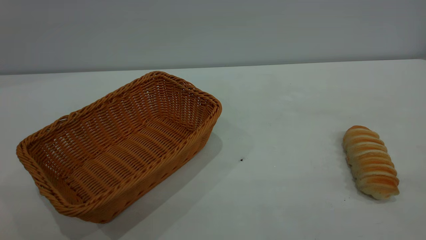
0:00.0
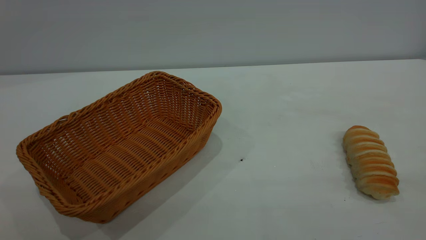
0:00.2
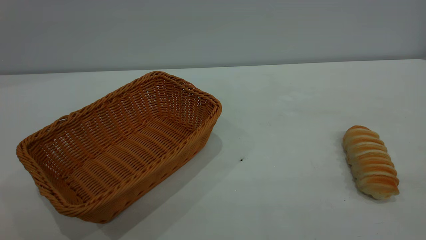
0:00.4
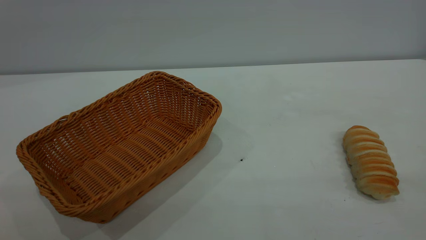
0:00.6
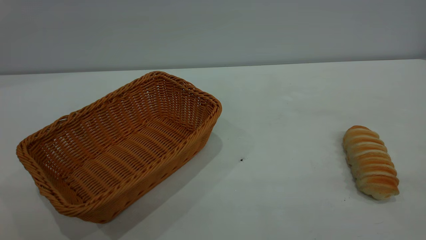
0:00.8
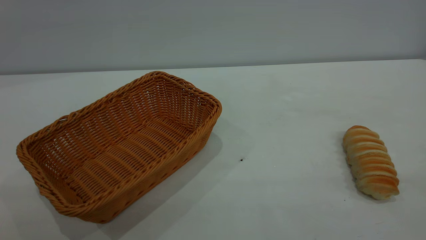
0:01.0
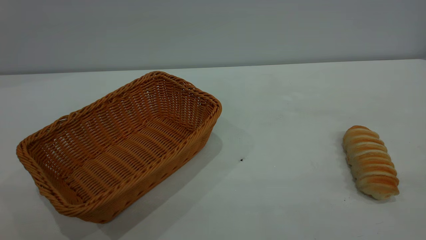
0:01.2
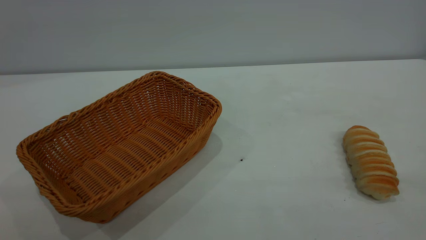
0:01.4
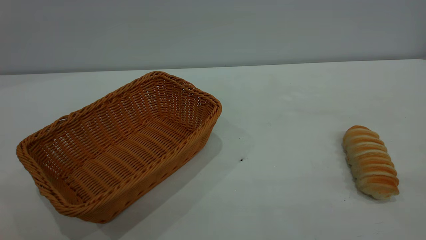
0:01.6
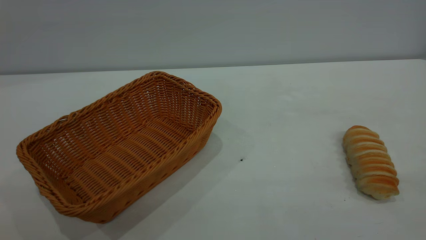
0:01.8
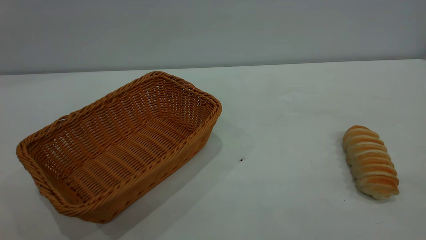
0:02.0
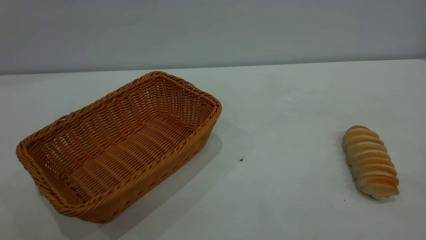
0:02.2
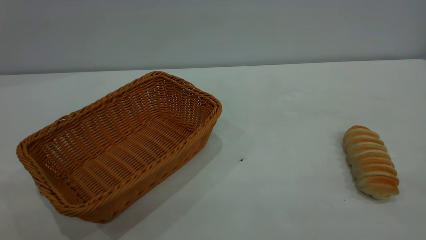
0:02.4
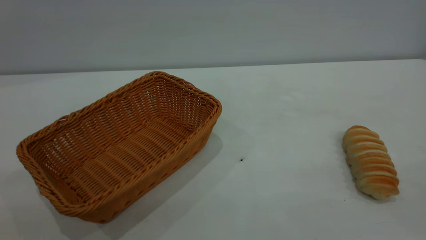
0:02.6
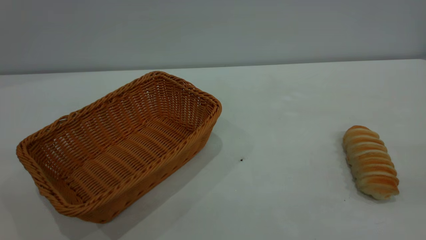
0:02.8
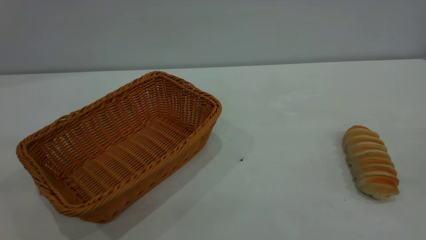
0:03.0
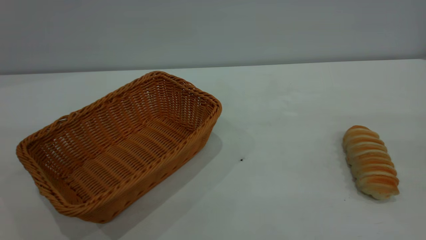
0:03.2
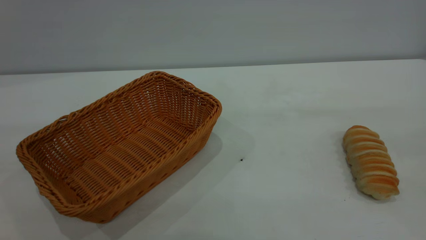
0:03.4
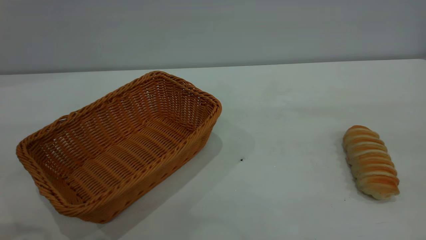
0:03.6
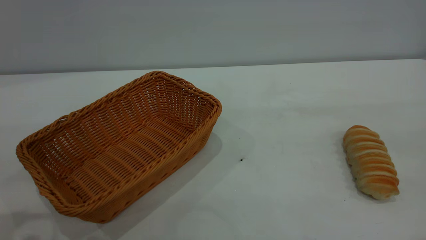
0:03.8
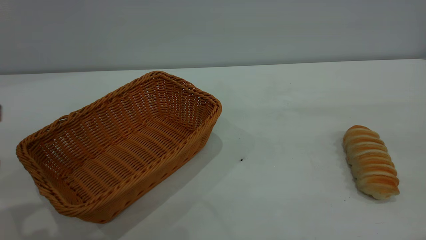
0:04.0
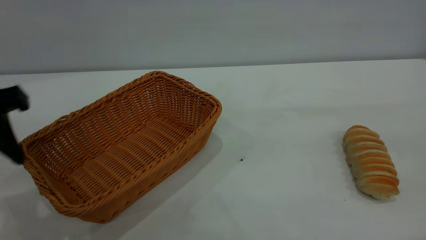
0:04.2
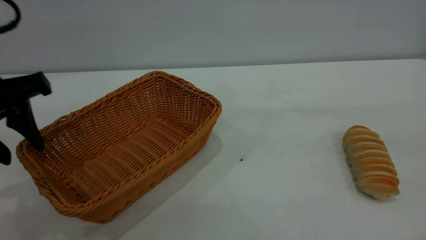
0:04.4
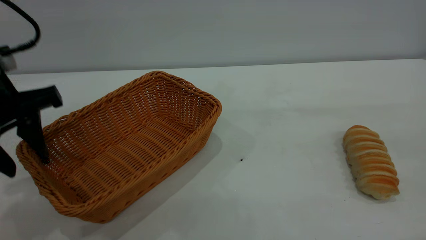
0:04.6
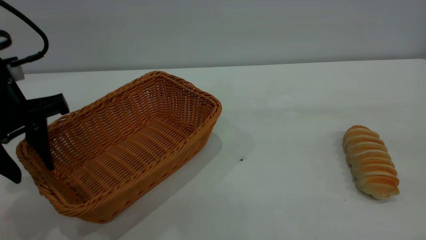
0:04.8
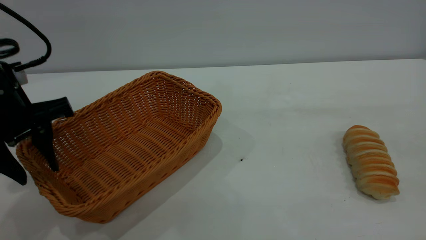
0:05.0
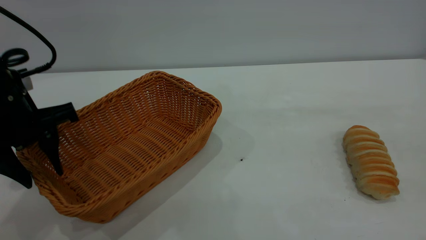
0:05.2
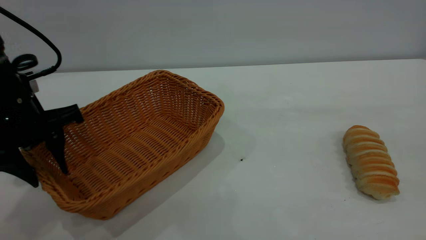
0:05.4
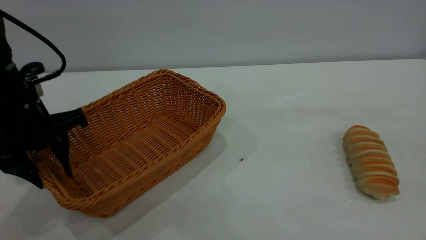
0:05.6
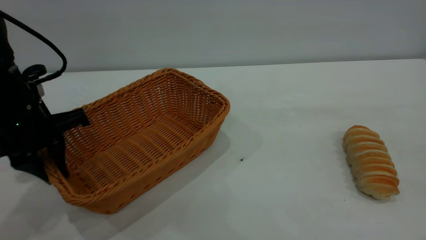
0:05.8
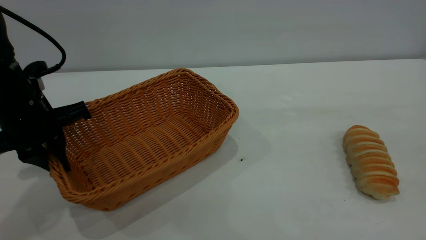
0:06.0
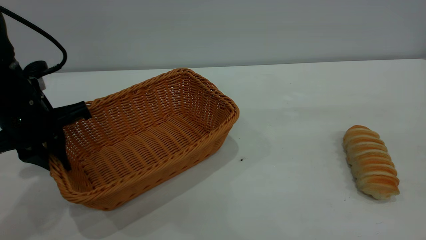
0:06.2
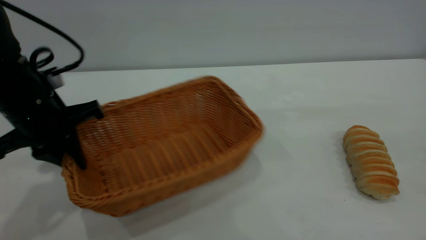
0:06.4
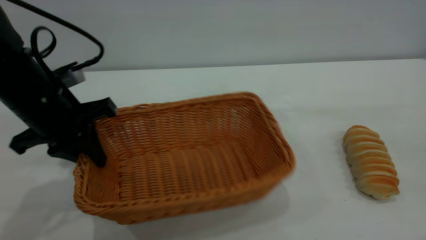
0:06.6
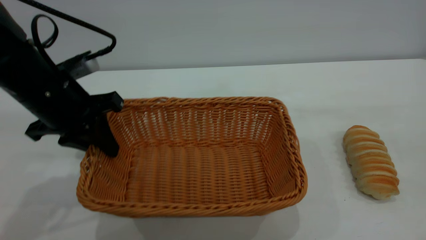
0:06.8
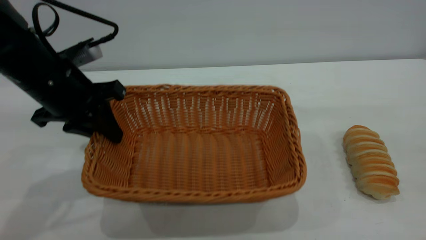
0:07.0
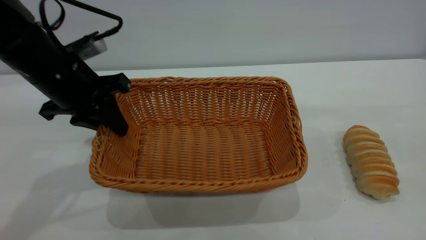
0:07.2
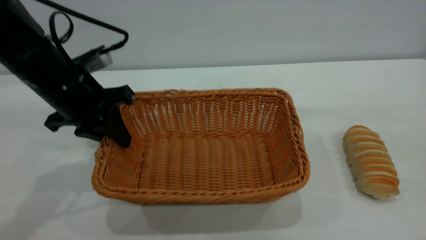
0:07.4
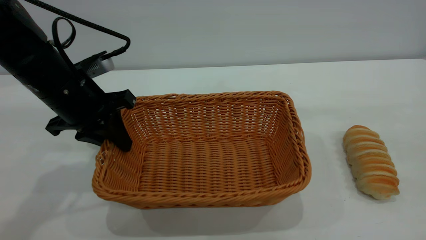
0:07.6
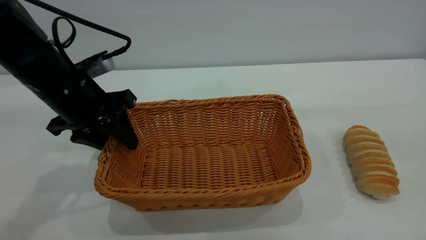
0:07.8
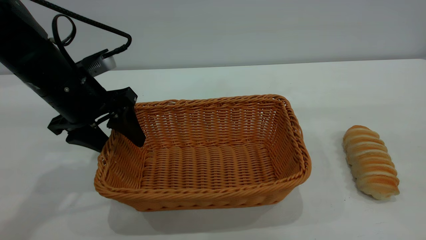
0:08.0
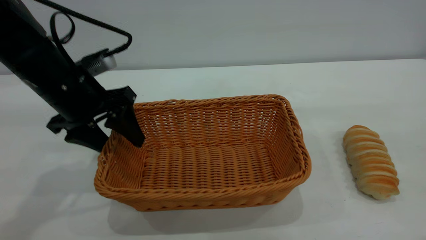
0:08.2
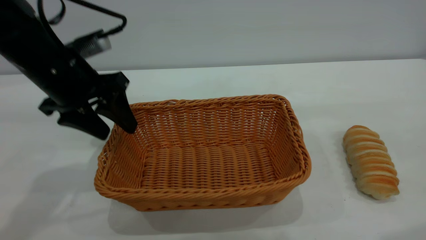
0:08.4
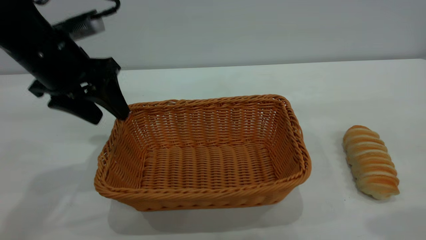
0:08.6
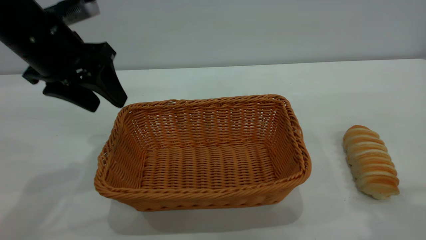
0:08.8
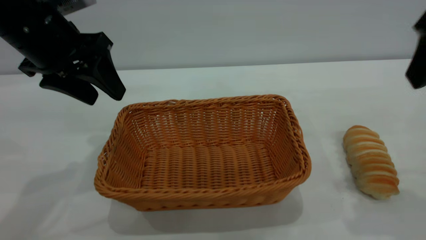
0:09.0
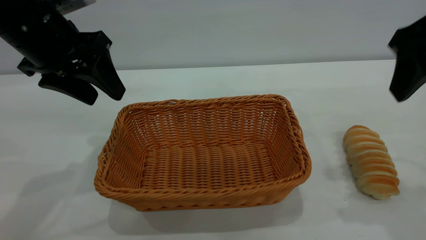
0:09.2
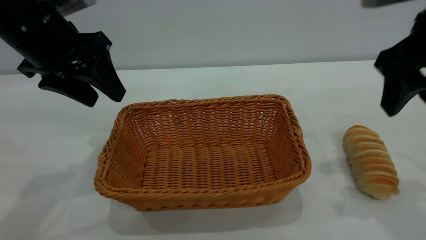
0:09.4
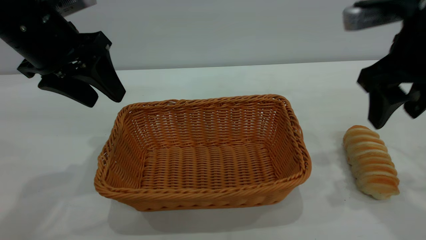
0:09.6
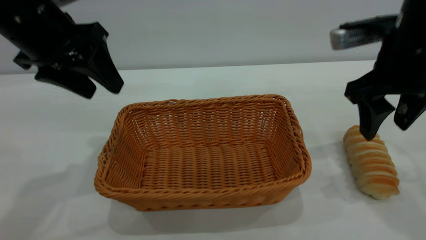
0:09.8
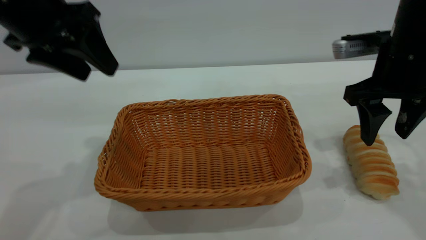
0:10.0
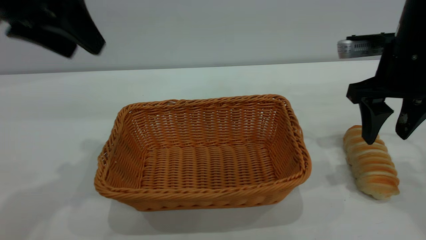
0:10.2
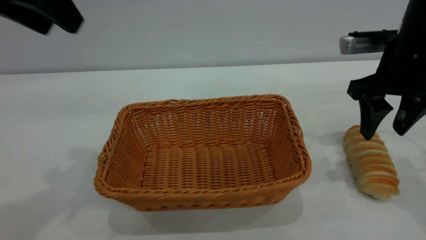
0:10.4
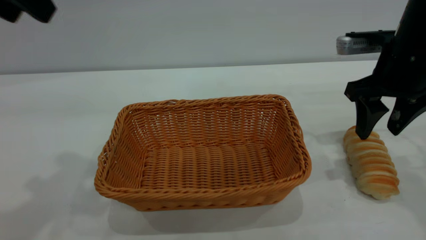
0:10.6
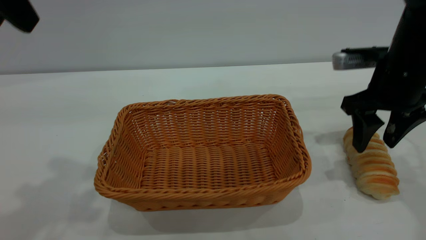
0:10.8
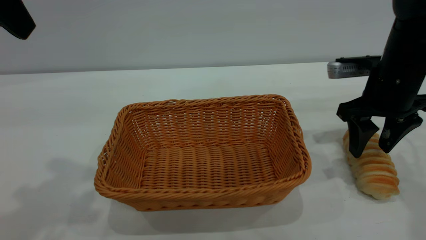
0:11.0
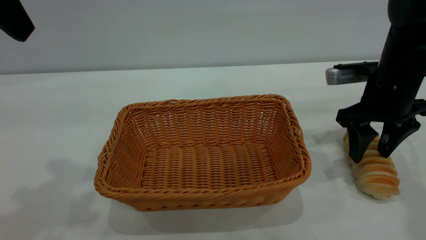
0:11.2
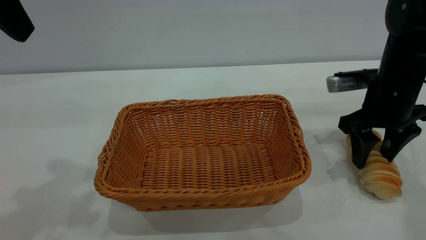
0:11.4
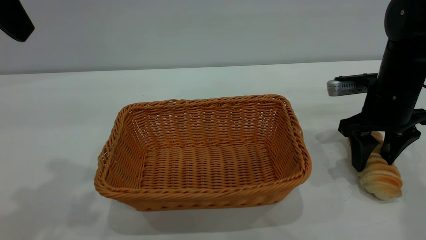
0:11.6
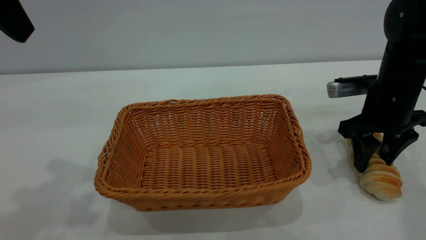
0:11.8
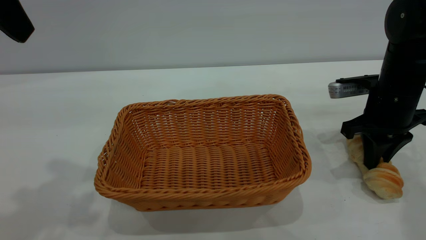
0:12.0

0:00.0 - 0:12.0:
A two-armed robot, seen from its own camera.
Task of the whole recording: One hand grasps the yellow basket and places it in the middle of the table, while the other hand picks up the long bread and puts it into the yellow basket.
Step, 0:00.0 - 0:09.0: Move the basket to the center of view.
0:00.0 - 0:01.6: Both grippers stay put.
0:03.0 - 0:04.4: The left gripper travels forward and downward by some 20 cm.
0:04.4 - 0:06.0: The left gripper travels downward and forward by approximately 10 cm, and closes up.
0:07.6 - 0:09.0: The left gripper is displaced upward by some 10 cm, and opens its fingers; the right gripper is displaced forward by some 10 cm.
0:09.0 - 0:10.4: The left gripper goes approximately 10 cm upward. The right gripper heads downward and forward, covering some 15 cm.
0:10.4 - 0:12.0: The right gripper heads downward, covering roughly 10 cm, and closes.

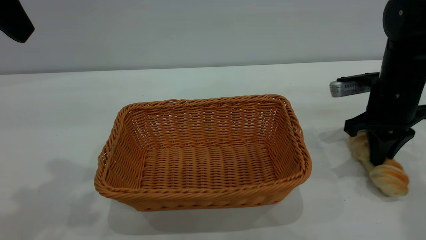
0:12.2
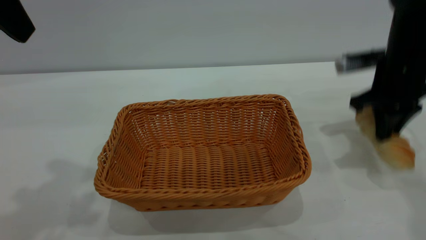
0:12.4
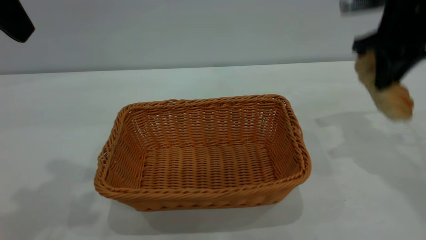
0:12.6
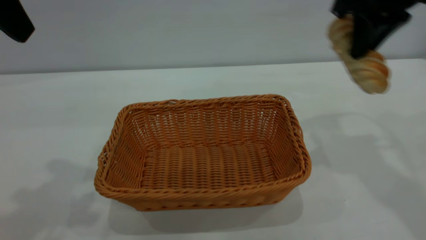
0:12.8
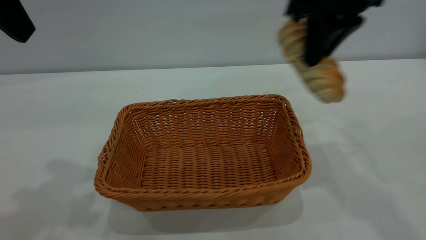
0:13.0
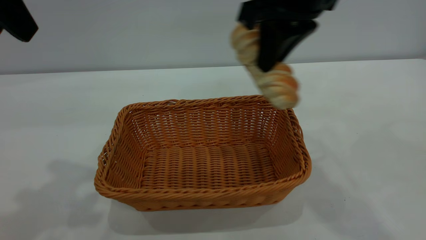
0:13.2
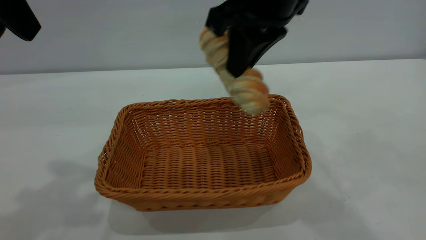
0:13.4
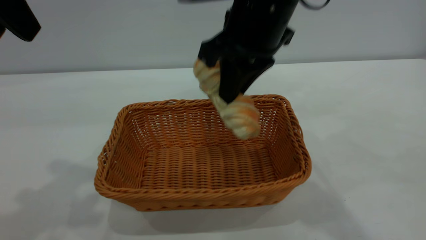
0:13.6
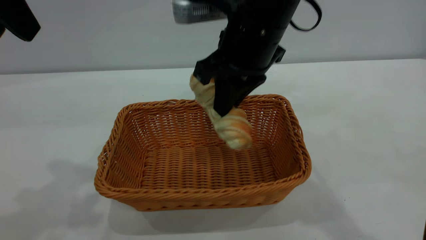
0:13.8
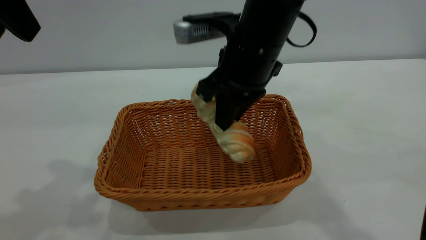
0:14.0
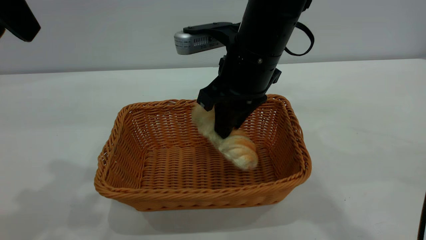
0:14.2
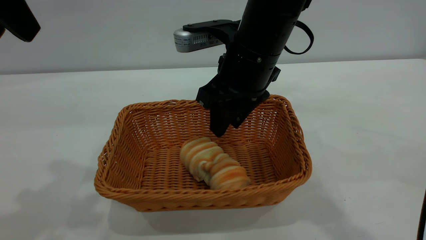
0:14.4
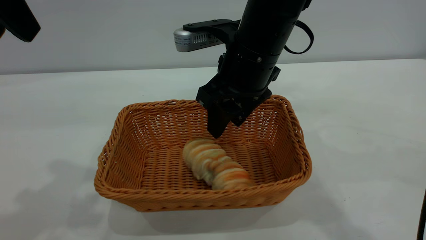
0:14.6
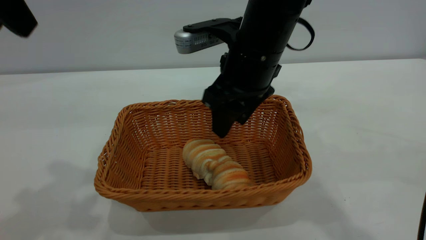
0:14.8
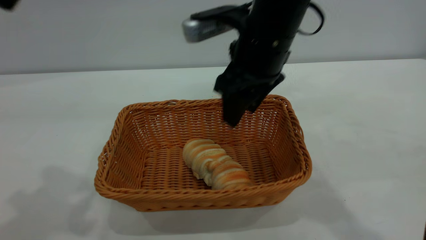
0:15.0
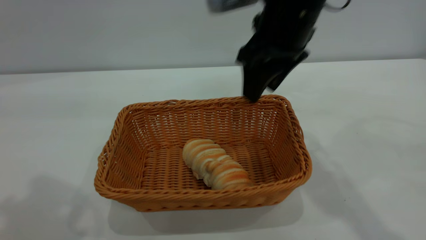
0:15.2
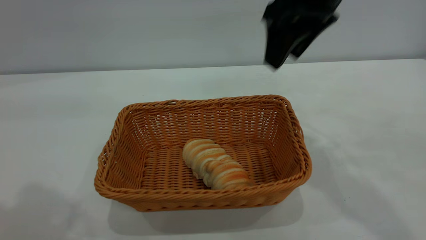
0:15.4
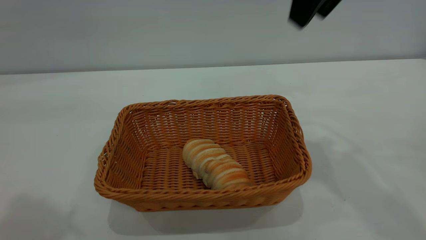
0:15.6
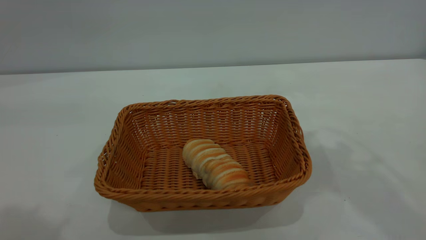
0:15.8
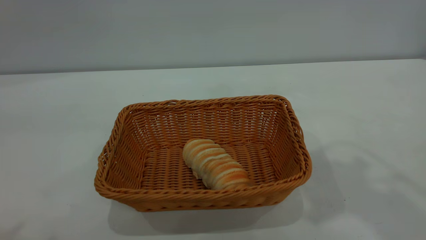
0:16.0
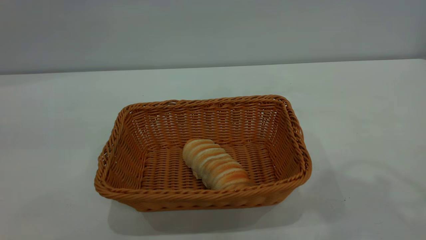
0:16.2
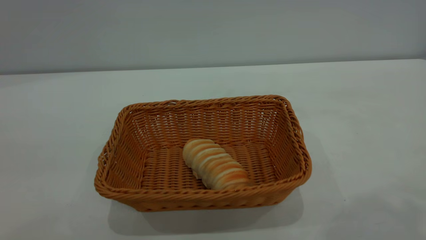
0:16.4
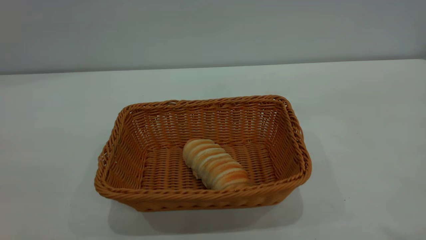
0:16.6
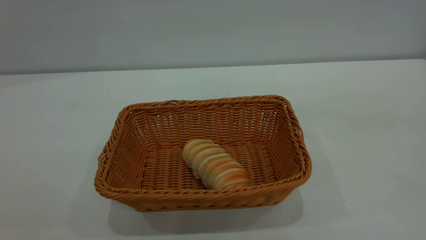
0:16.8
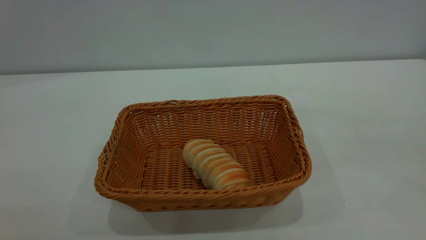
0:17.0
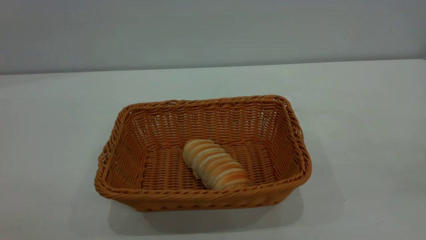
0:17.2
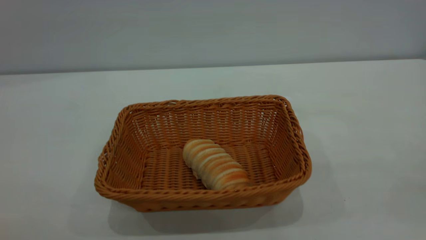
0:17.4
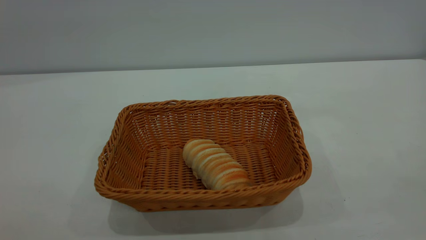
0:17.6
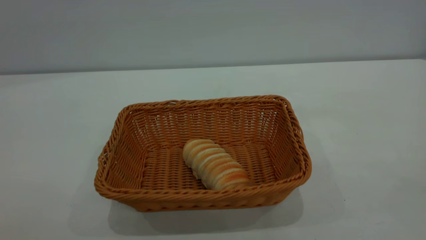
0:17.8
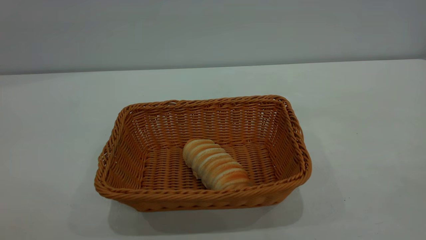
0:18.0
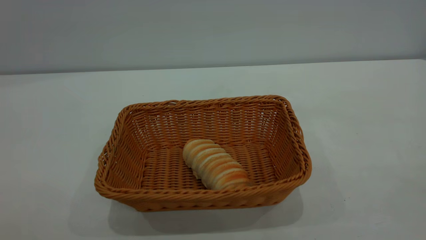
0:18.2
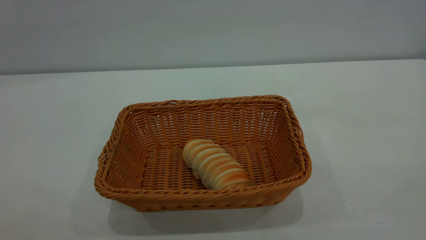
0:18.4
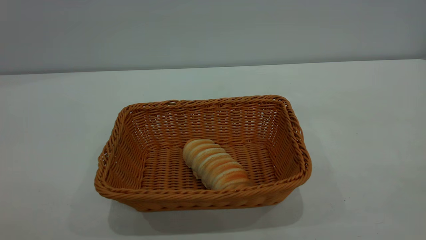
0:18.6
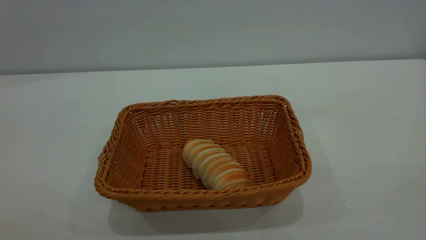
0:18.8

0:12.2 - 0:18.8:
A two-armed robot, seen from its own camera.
Task of the whole recording: One hand grasps the yellow basket and places it in the middle of the table, while the other hand picks up the long bread and puts it into the yellow basket.
Step, 0:12.6 - 0:15.2: place the bread into the basket.
0:12.2 - 0:13.8: The right gripper goes some 25 cm to the left and upward.
0:13.8 - 0:15.4: The right gripper travels to the right and upward by about 10 cm, and opens up, while the left gripper is displaced upward and backward by roughly 10 cm.
0:15.4 - 0:17.2: The right gripper goes roughly 35 cm backward and to the right; the left gripper heads backward, covering roughly 25 cm.
